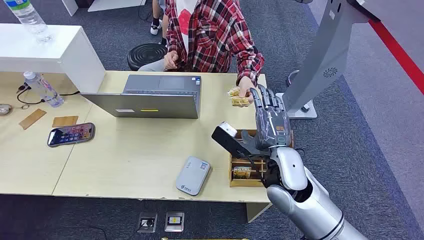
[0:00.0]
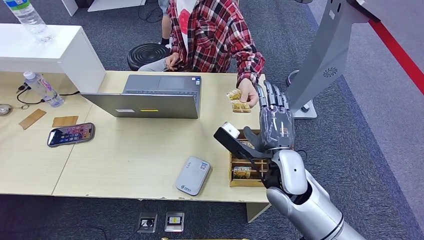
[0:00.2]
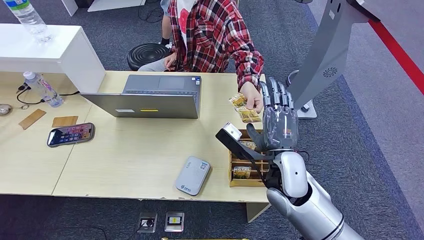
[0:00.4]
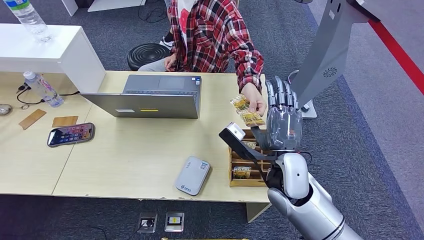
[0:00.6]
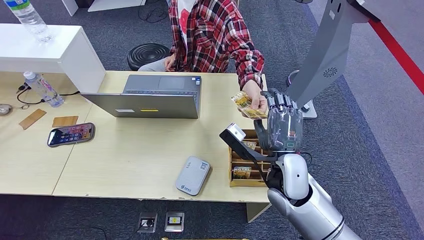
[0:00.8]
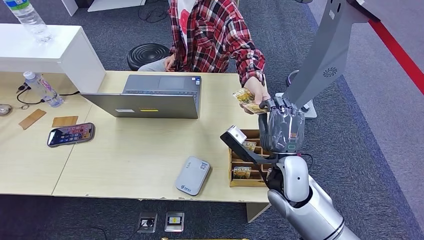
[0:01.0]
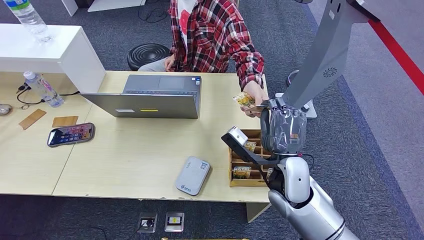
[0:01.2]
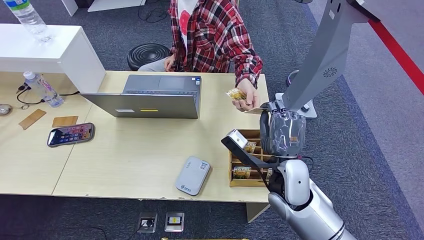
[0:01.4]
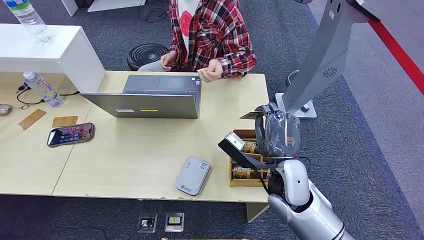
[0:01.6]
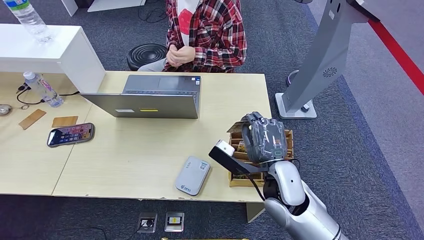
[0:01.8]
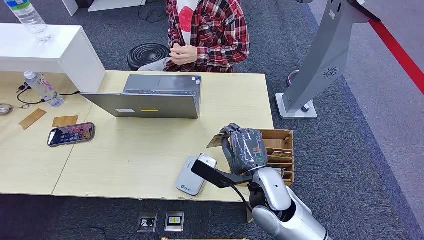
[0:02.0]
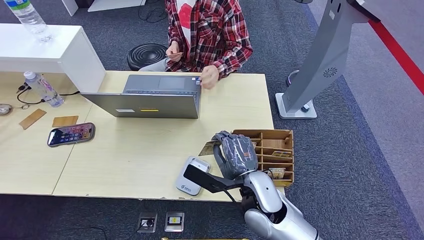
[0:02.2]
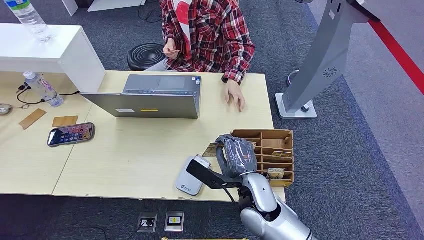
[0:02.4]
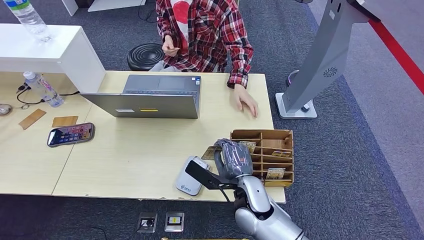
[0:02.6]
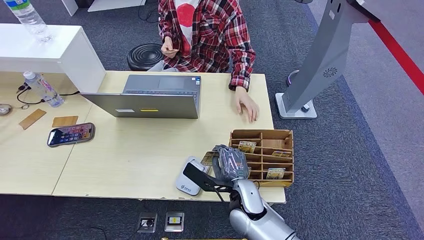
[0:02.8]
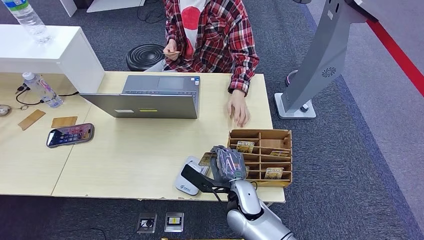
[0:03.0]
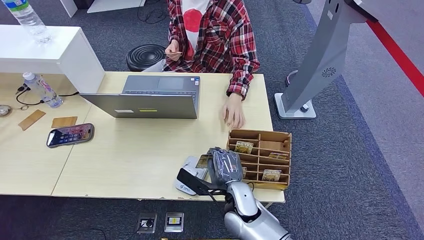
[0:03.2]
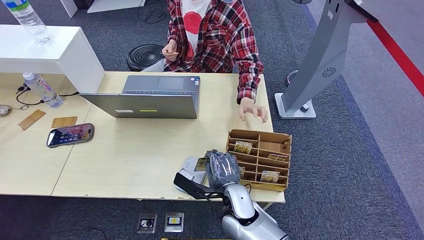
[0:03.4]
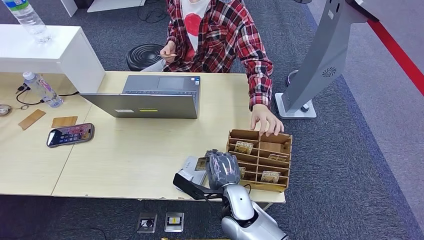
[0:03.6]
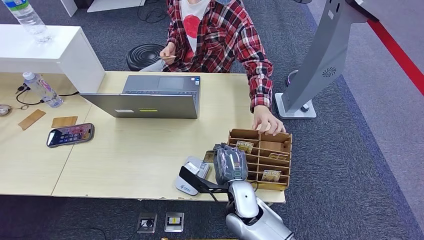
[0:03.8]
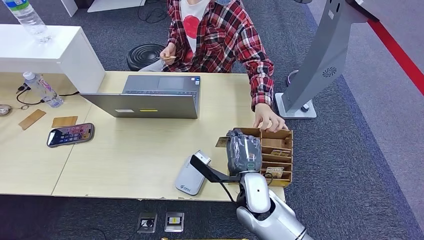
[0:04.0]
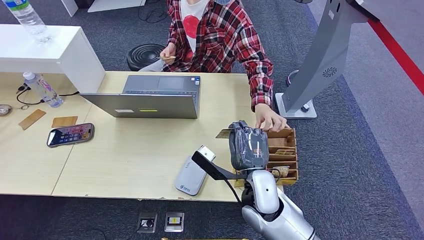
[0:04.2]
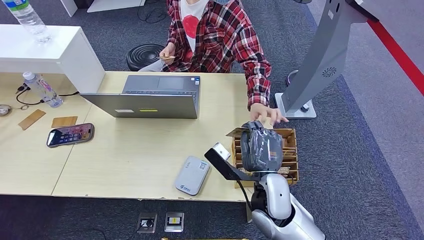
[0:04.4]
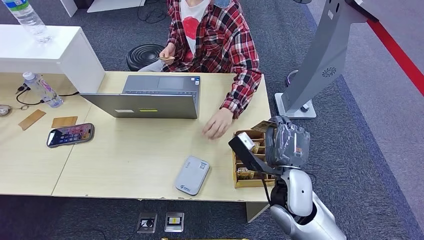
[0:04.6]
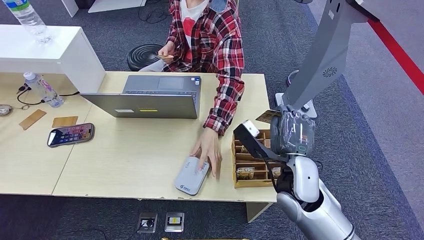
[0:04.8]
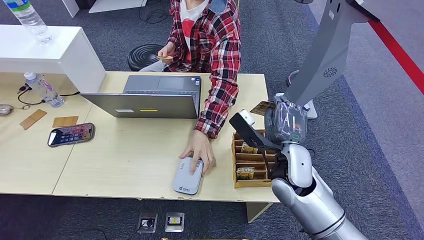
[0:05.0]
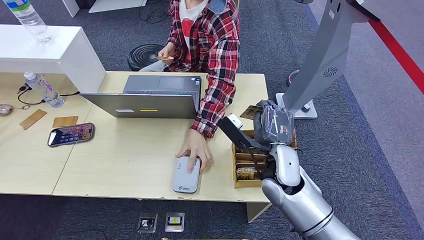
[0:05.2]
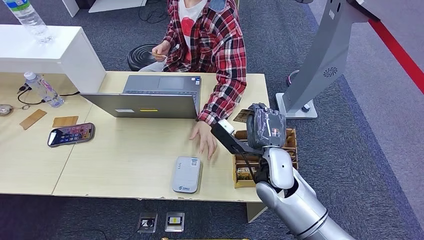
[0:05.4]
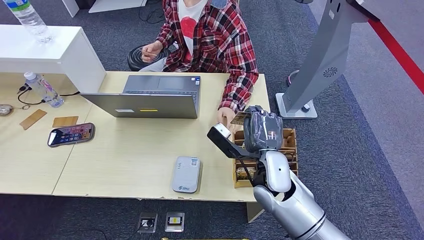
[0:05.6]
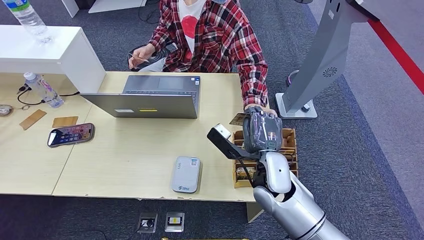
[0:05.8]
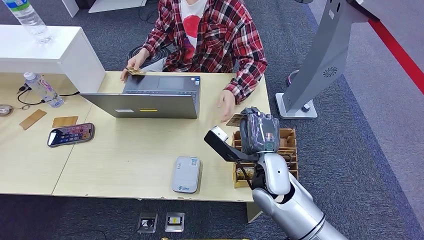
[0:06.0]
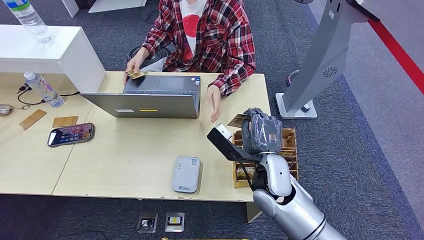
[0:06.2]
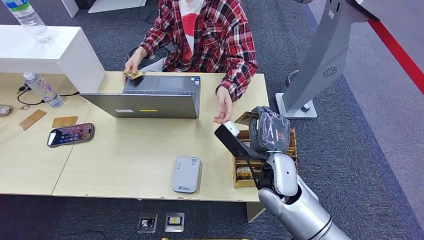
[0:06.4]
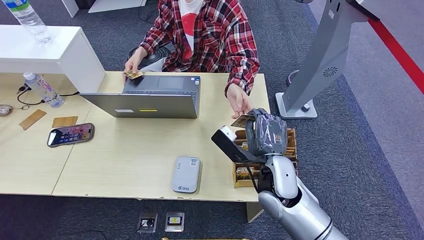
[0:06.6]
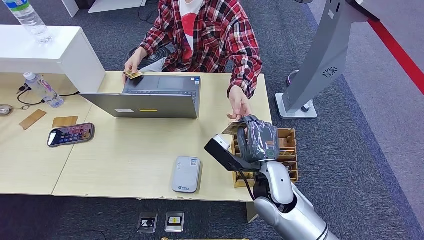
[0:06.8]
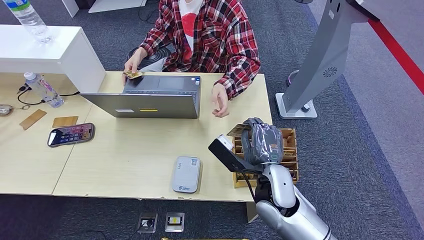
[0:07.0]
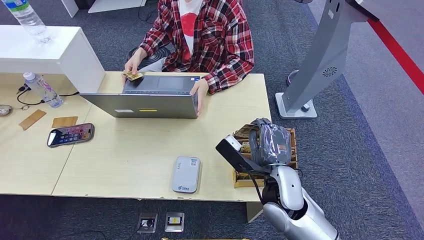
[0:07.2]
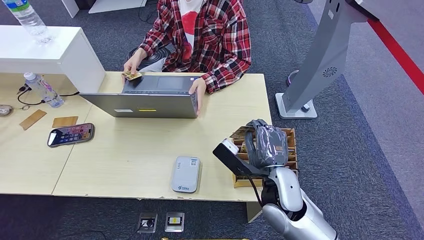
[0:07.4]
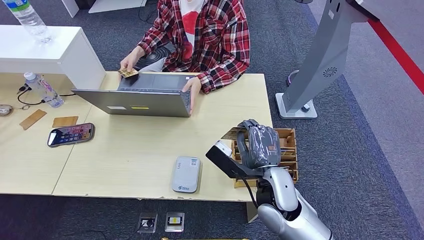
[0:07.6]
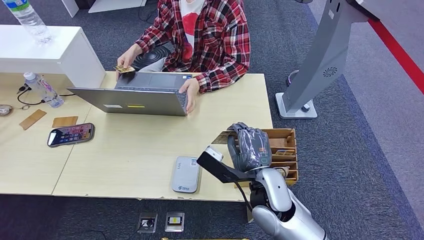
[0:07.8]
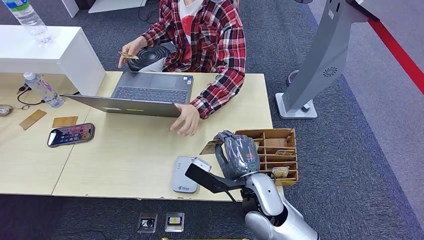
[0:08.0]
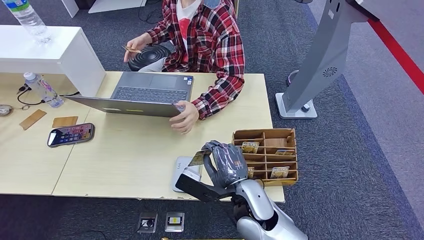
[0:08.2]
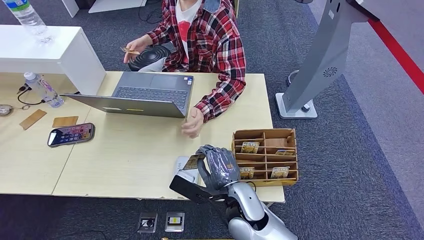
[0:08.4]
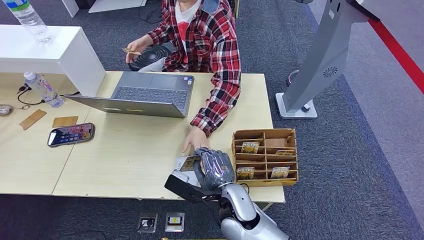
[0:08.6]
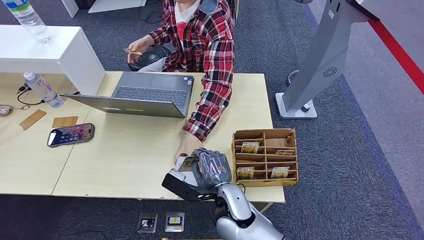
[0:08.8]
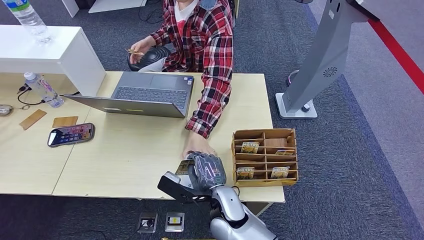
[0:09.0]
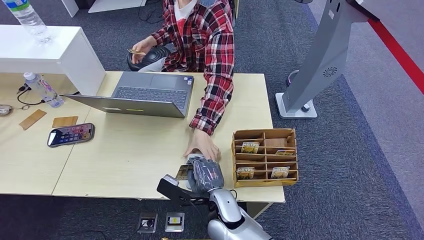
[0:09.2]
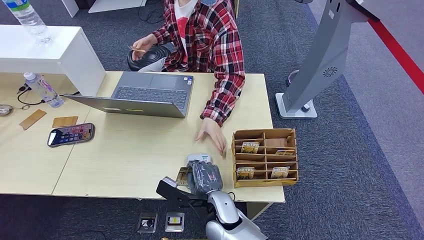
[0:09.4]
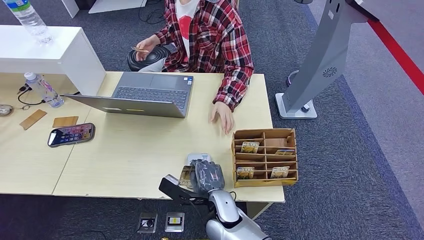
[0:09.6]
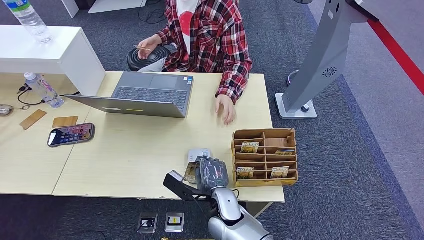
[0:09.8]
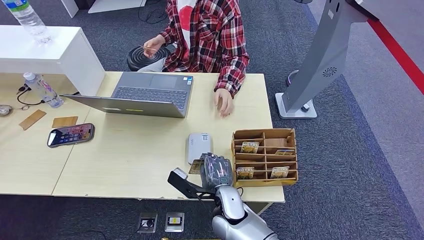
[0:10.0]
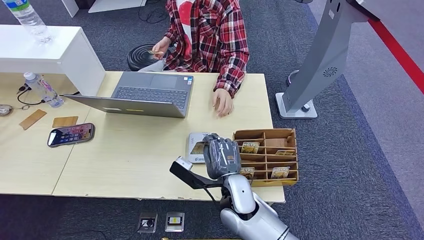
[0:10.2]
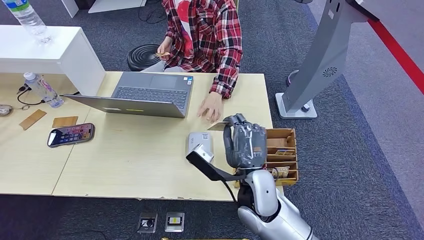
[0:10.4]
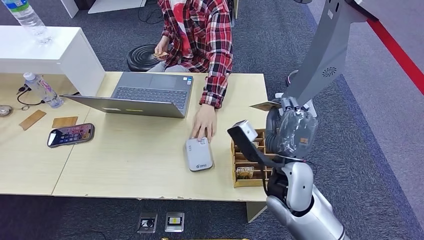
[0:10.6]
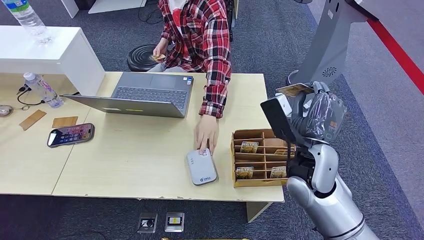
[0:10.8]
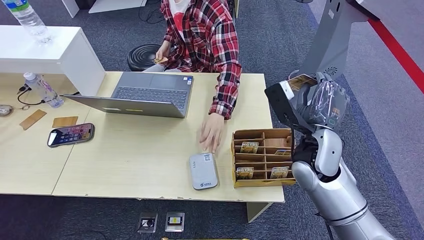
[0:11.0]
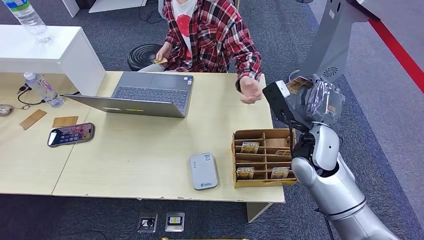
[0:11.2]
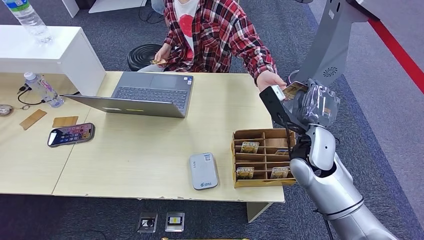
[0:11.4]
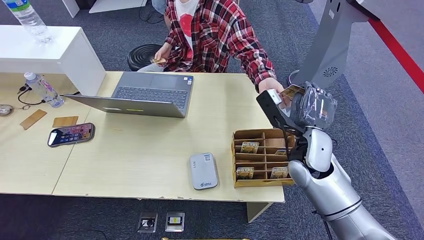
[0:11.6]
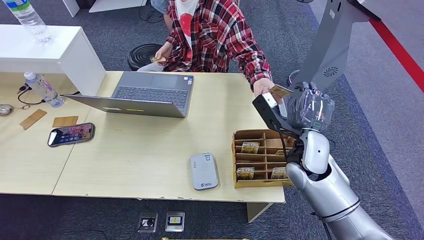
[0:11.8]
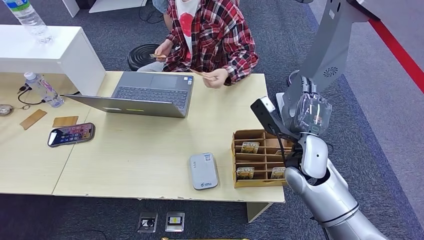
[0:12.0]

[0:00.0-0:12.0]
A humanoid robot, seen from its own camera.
Step, 0:00.0 to 0:01.4: Take the ID card from the person's hand.
Step, 0:01.8 to 0:09.4: Place the ID card on the card reader.
0:01.6 to 0:03.0: The right hand travels downward and to the left by roughly 10 cm.
0:03.0 to 0:04.4: The right hand heads upward, covering some 5 cm.
0:06.0 to 0:07.6: The hands stay close to where they were, moving slightly.
0:07.6 to 0:09.0: The right hand heads to the left and downward, covering about 10 cm.
0:09.0 to 0:10.4: The right hand heads upward and to the right, covering about 10 cm.
0:10.4 to 0:12.0: The right hand goes roughly 15 cm to the right and forward.

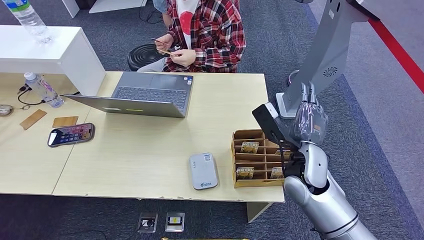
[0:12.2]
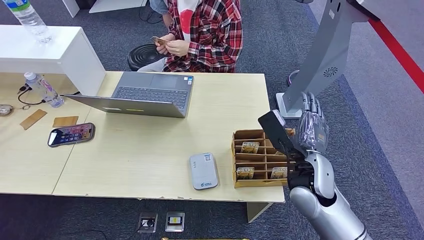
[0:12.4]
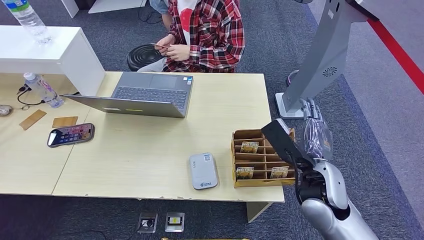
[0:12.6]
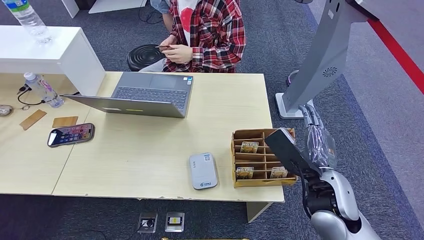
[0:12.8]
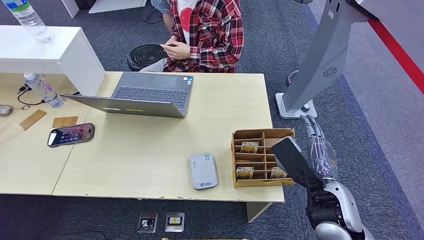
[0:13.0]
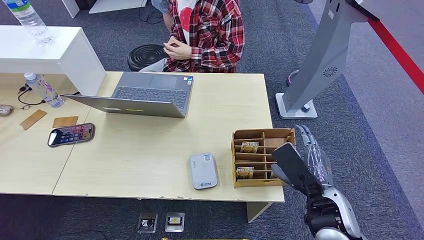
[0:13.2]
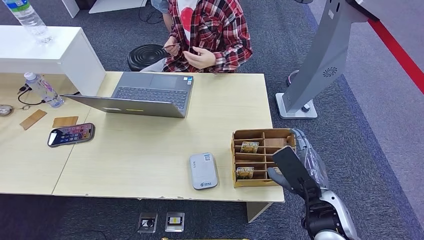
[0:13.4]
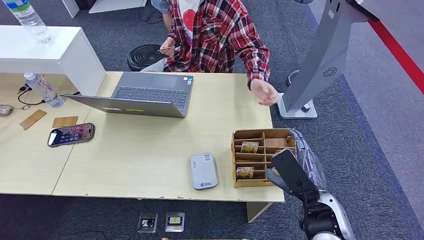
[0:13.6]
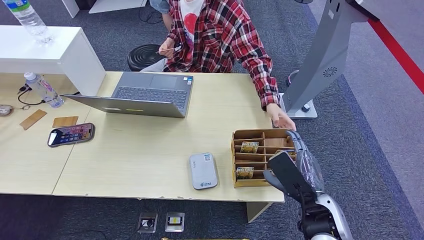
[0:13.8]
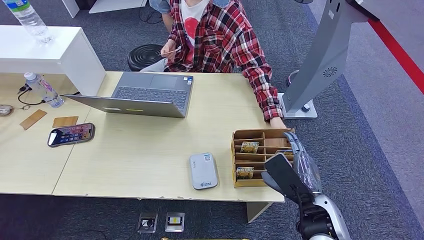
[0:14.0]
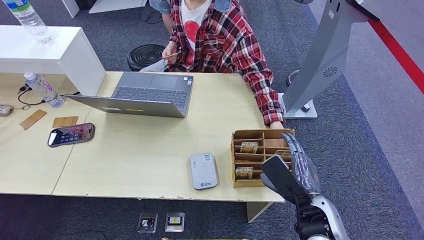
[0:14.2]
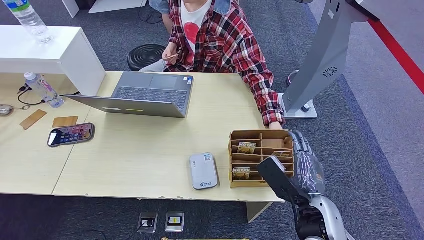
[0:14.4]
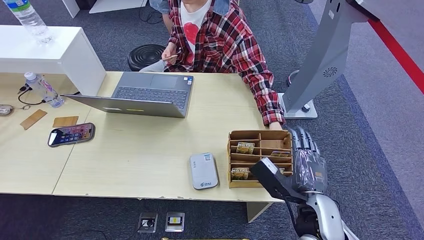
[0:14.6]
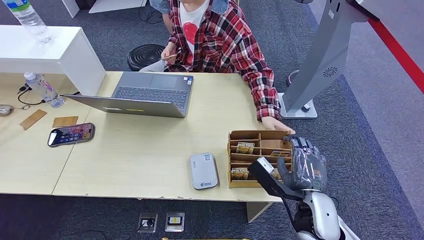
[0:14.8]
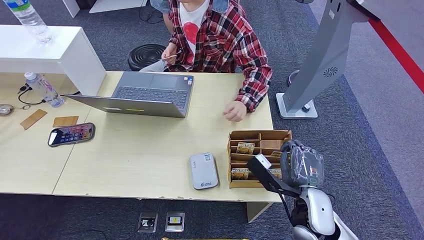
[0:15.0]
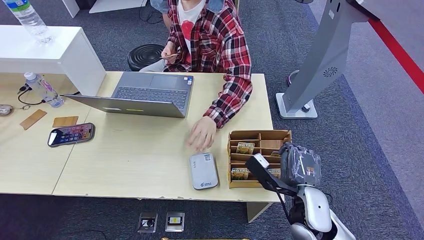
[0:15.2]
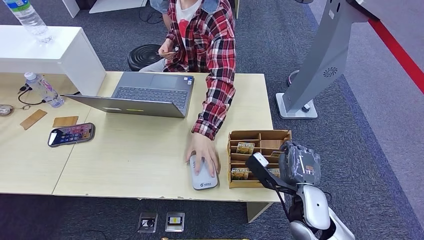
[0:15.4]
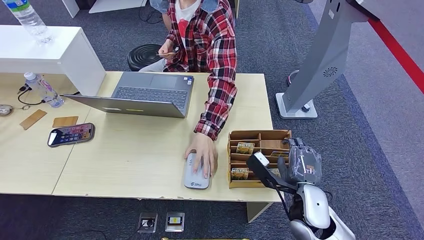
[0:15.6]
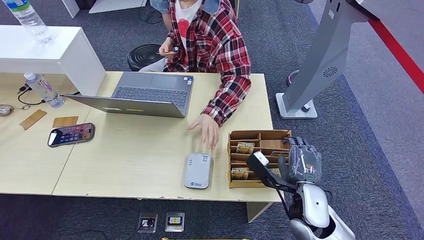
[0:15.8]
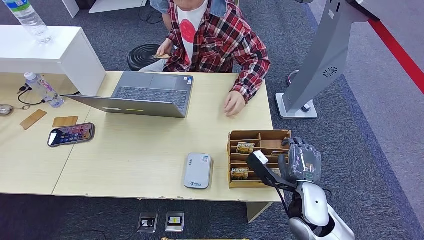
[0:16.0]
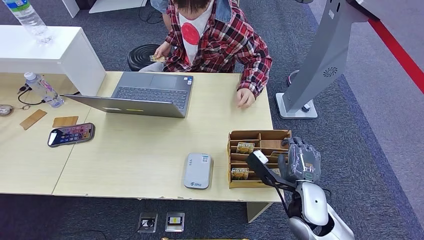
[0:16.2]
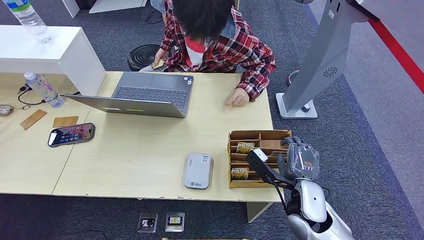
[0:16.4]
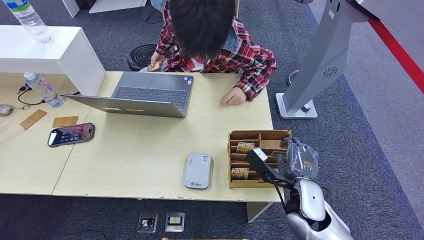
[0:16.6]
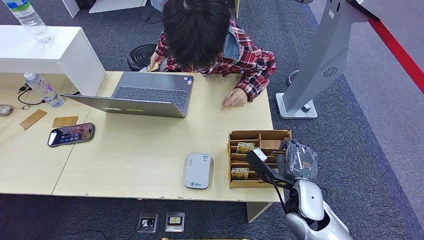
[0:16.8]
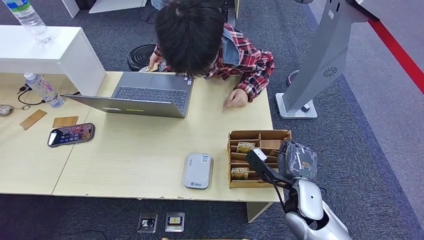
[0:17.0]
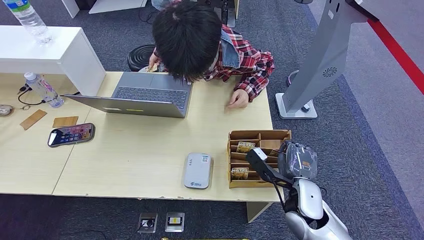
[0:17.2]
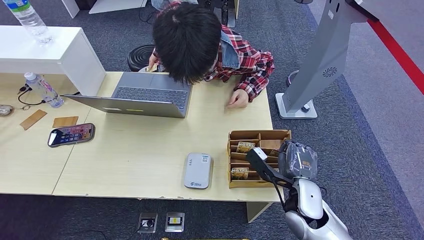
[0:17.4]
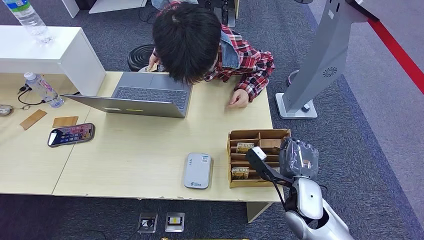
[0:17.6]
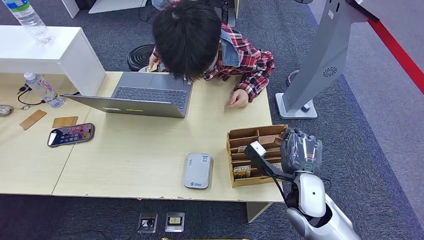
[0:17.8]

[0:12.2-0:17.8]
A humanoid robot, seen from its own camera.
0:12.2 to 0:13.6: The right hand moves backward, roughly 10 cm.
0:15.0 to 0:17.8: There are only small adjustments of the hands.
